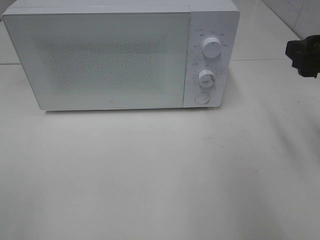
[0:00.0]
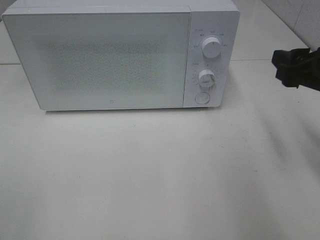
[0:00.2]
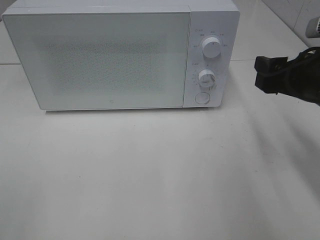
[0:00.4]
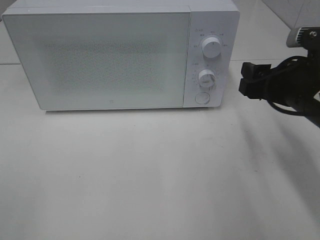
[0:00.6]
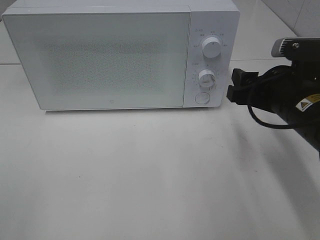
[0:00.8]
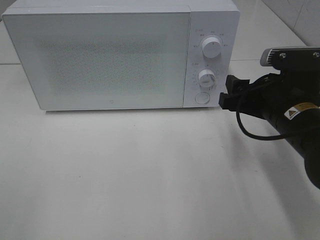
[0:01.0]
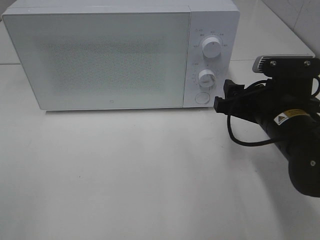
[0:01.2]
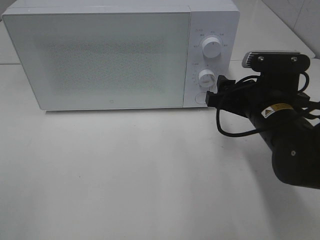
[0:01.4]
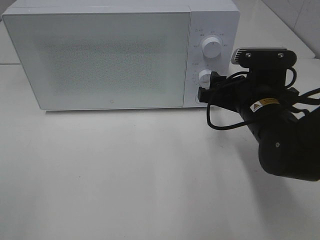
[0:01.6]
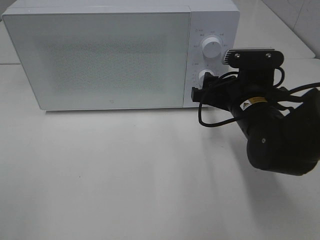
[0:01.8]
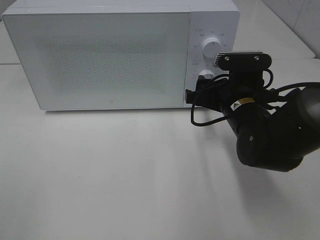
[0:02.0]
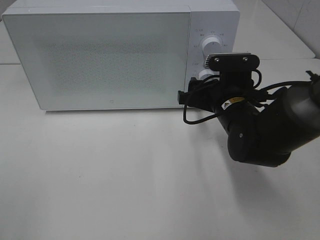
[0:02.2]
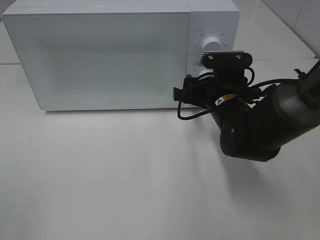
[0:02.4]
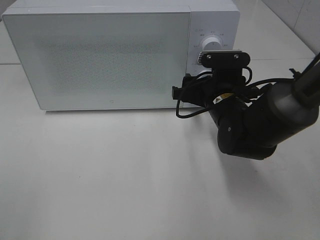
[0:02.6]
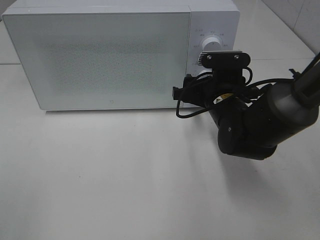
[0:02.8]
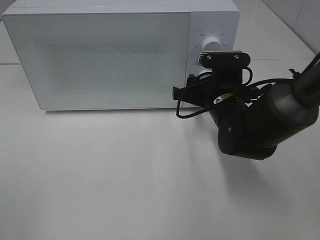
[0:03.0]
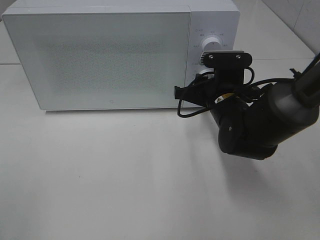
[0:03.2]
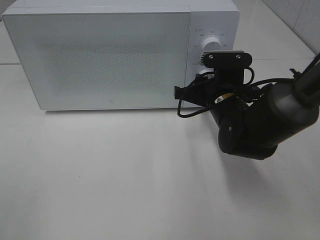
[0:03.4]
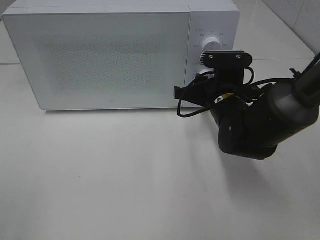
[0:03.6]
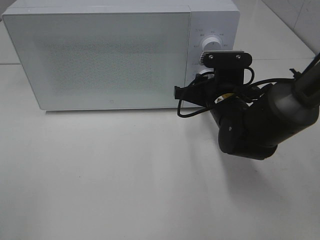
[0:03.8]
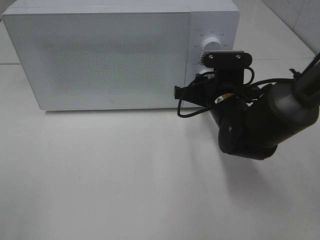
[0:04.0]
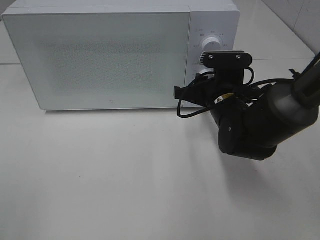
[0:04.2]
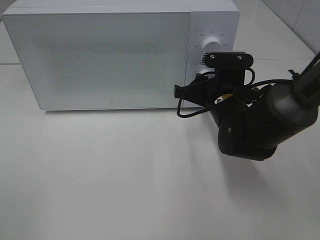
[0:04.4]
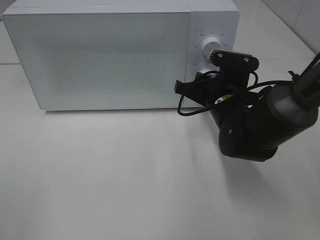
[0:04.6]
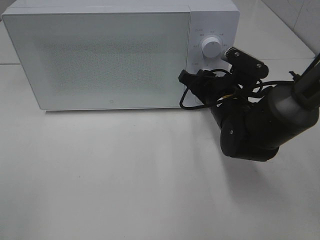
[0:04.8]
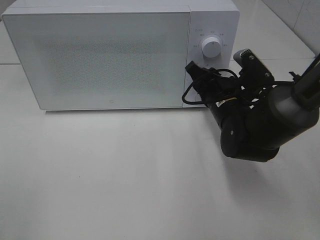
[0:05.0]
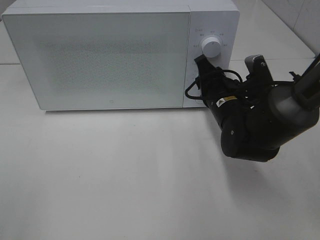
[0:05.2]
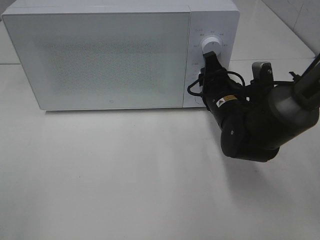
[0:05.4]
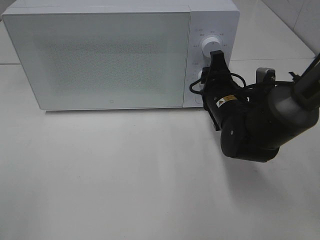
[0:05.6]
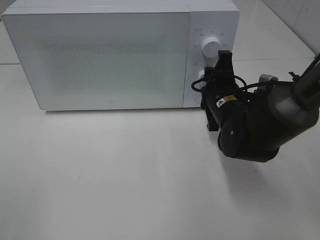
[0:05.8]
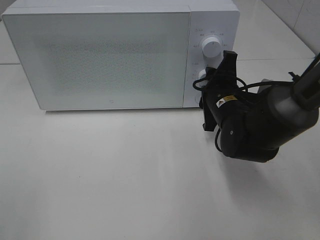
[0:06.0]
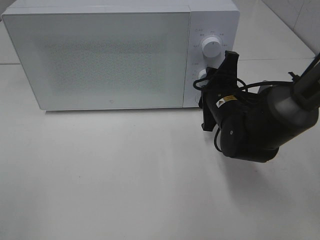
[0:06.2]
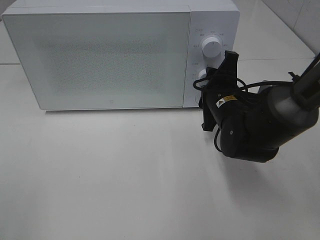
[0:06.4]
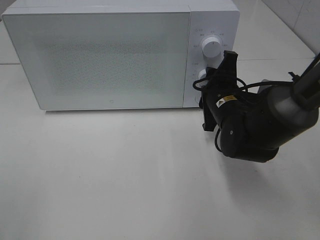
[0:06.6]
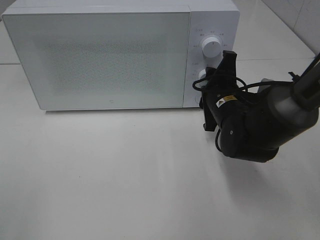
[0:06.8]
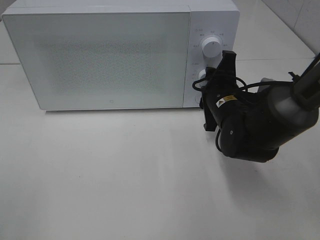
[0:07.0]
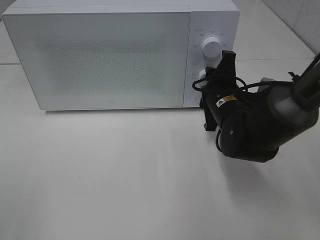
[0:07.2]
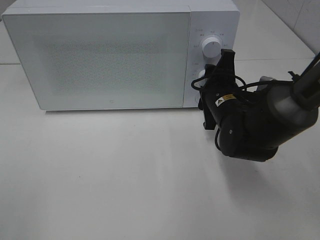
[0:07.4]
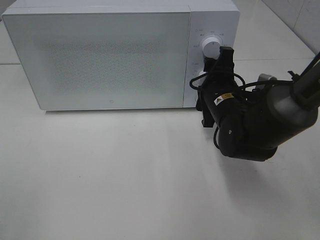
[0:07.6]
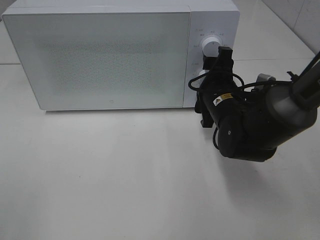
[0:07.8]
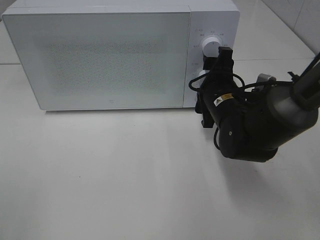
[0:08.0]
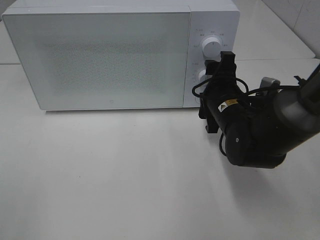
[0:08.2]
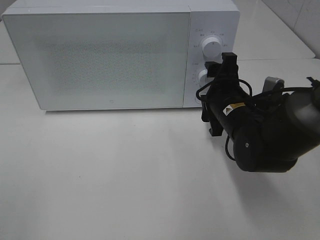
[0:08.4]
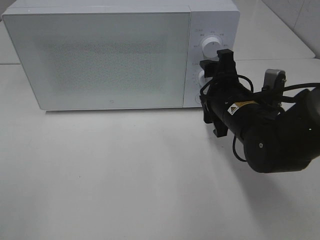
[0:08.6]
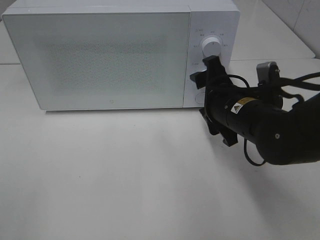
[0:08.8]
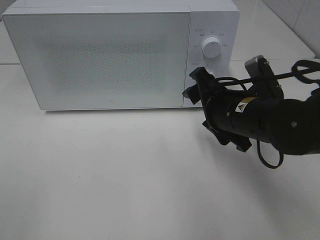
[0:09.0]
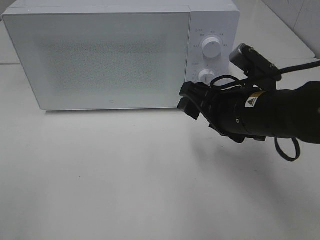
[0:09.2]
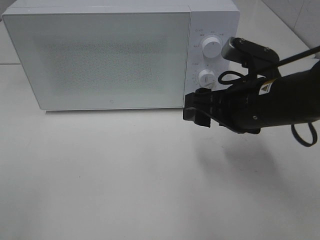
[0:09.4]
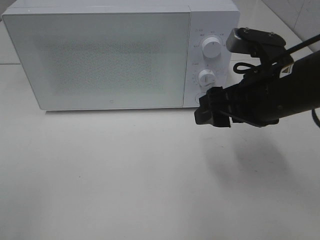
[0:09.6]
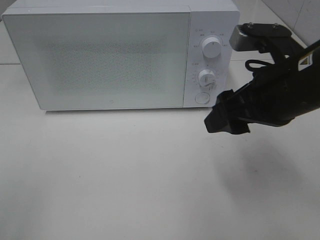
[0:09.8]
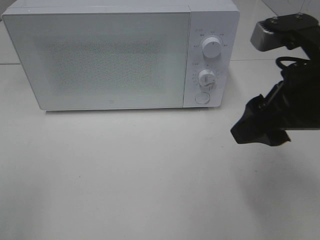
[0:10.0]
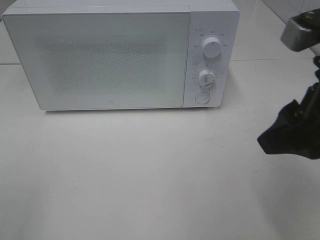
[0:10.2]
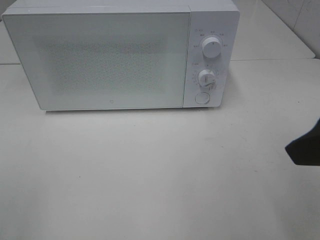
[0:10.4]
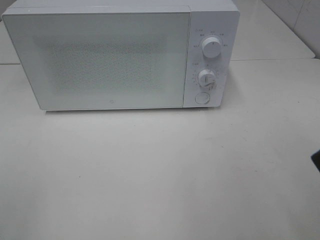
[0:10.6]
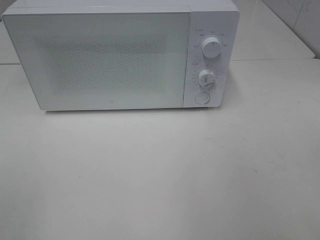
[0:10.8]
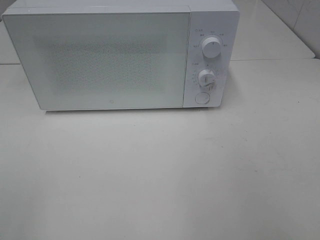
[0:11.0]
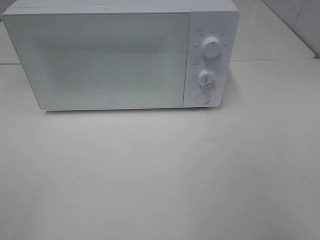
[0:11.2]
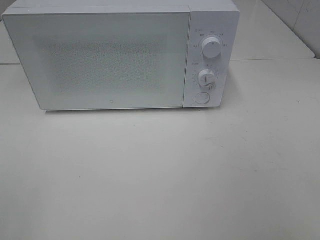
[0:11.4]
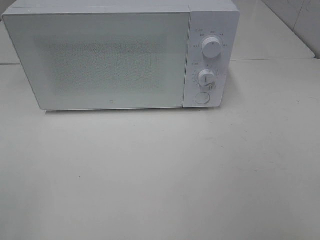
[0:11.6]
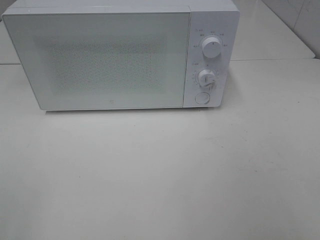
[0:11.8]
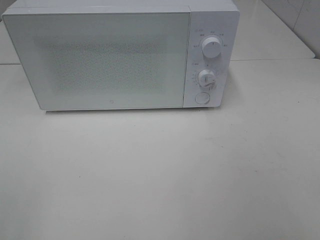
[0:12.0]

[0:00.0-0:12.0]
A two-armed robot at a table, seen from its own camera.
Task of the whole recording: Heat Sandwich.
Step, 0:00.0 to 0:08.2: Right hand: twist timer button.
0:00.0 to 0:01.6: The right gripper goes approximately 15 cm to the left and downward.
0:01.6 to 0:03.0: The right gripper shifts by roughly 5 cm.
0:03.0 to 0:04.4: The two grippers keep their place.
0:06.0 to 0:07.6: The two grippers keep their place.
0:07.6 to 0:09.0: The right gripper heads backward, covering some 5 cm.
0:09.0 to 0:10.4: The right gripper shifts roughly 20 cm upward, backward and to the right.
0:10.4 to 0:12.0: The right gripper moves backward and to the right, approximately 15 cm.

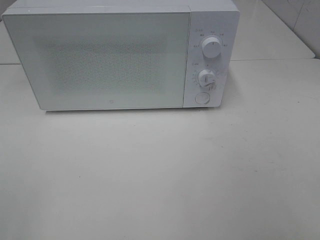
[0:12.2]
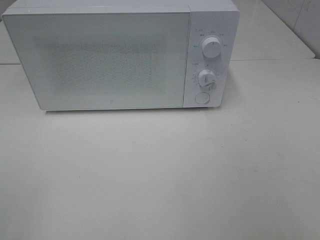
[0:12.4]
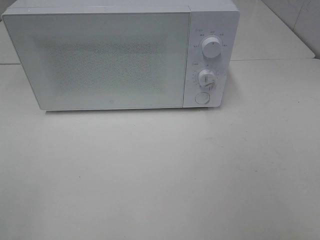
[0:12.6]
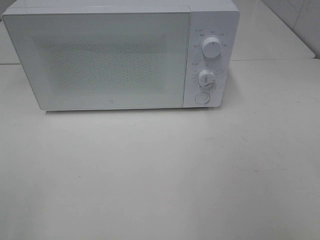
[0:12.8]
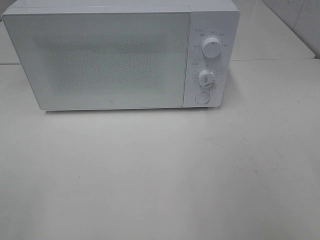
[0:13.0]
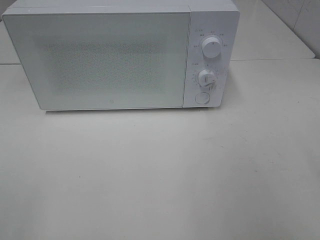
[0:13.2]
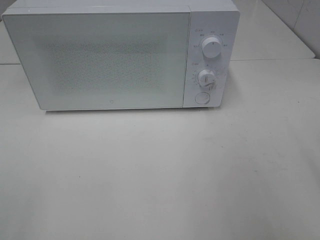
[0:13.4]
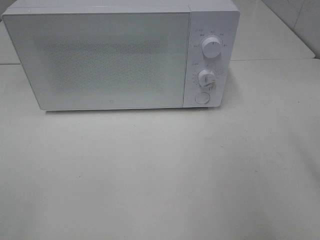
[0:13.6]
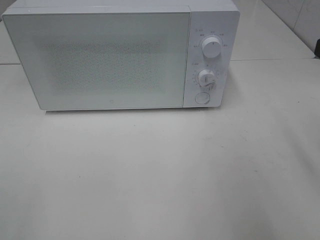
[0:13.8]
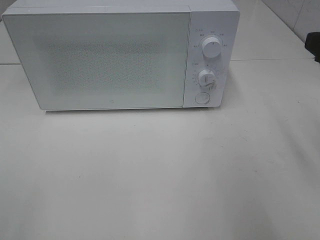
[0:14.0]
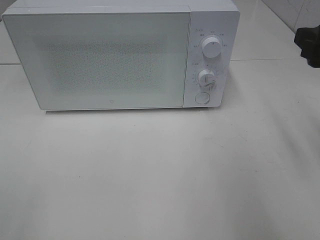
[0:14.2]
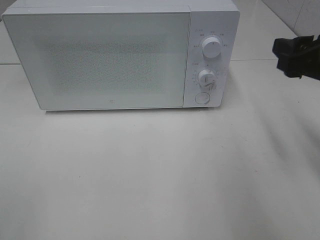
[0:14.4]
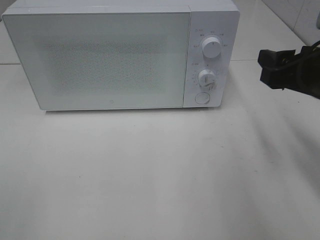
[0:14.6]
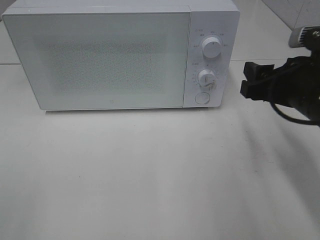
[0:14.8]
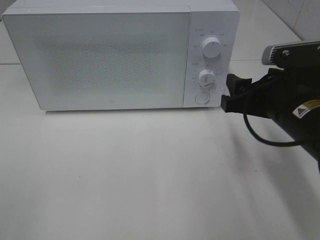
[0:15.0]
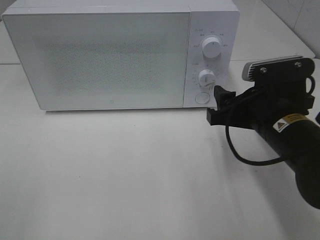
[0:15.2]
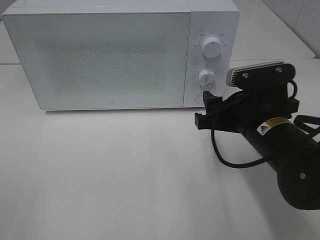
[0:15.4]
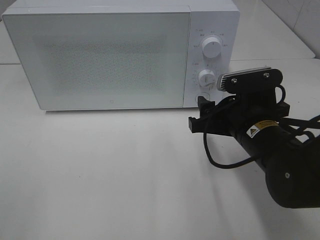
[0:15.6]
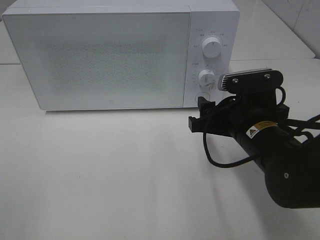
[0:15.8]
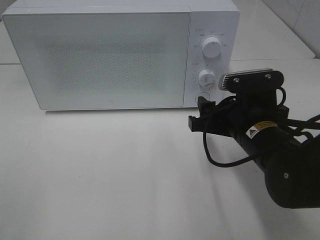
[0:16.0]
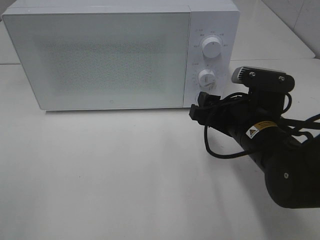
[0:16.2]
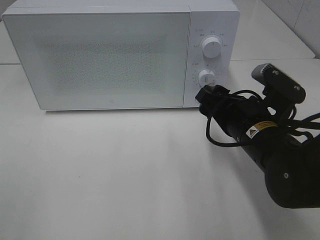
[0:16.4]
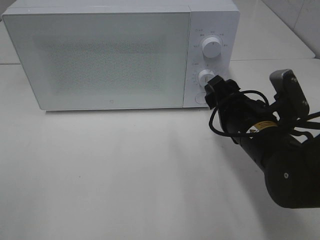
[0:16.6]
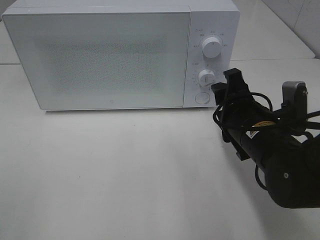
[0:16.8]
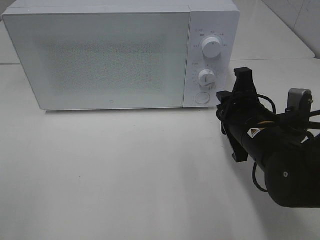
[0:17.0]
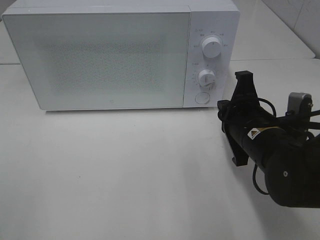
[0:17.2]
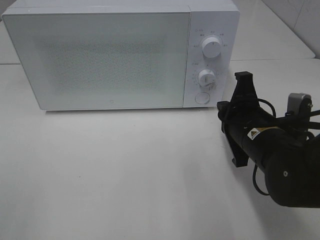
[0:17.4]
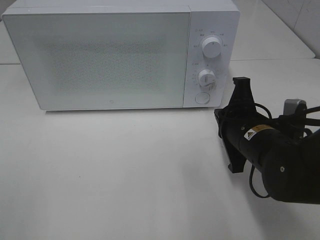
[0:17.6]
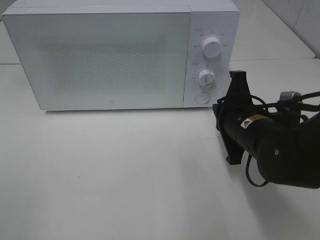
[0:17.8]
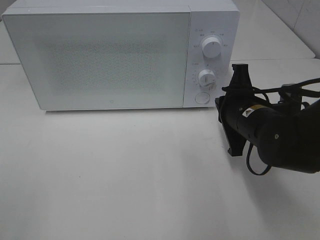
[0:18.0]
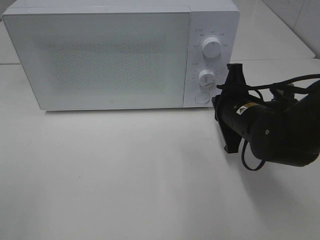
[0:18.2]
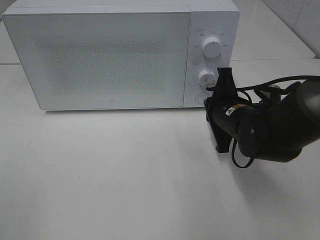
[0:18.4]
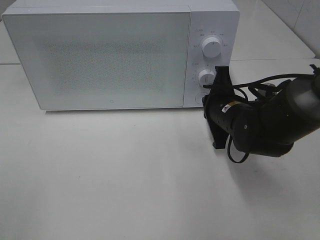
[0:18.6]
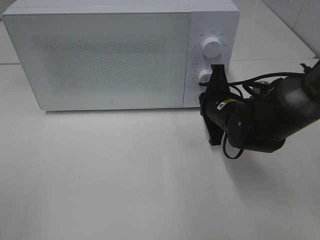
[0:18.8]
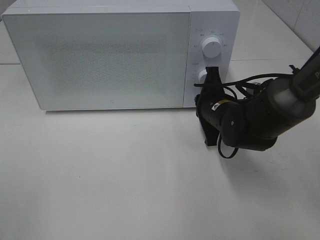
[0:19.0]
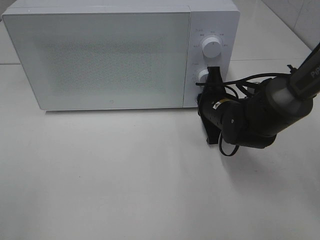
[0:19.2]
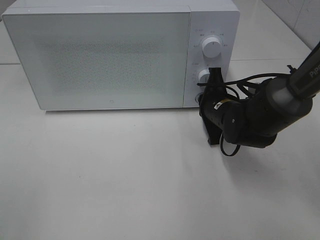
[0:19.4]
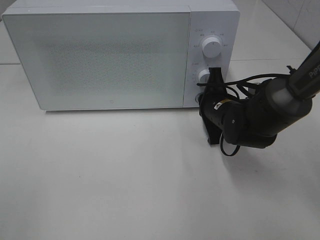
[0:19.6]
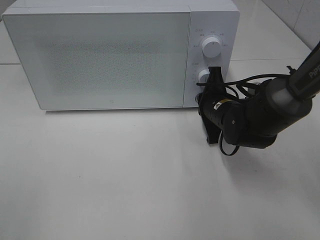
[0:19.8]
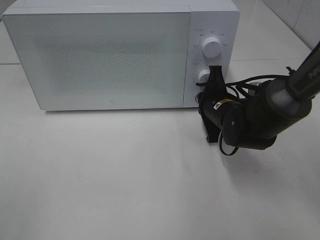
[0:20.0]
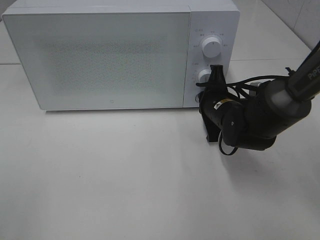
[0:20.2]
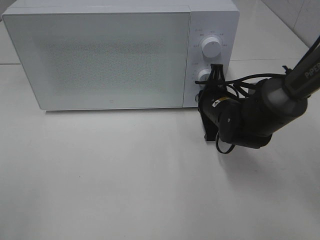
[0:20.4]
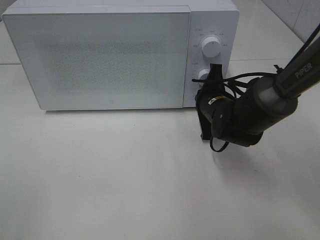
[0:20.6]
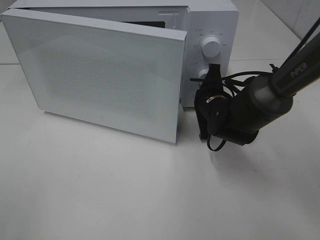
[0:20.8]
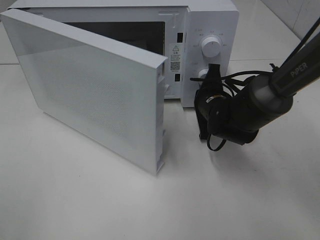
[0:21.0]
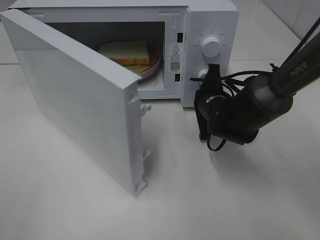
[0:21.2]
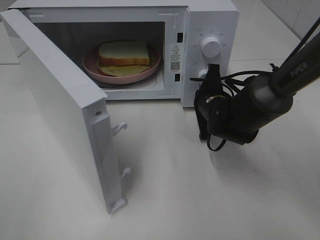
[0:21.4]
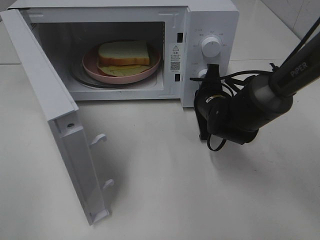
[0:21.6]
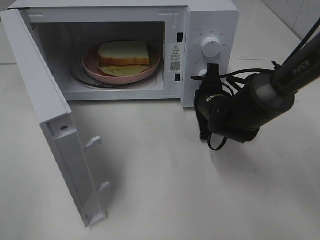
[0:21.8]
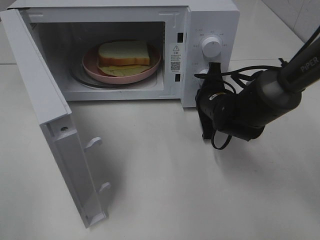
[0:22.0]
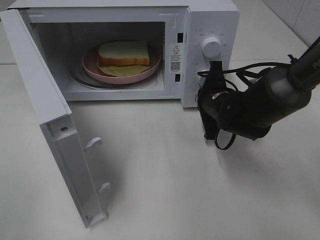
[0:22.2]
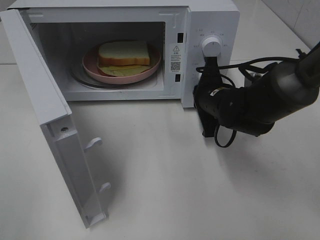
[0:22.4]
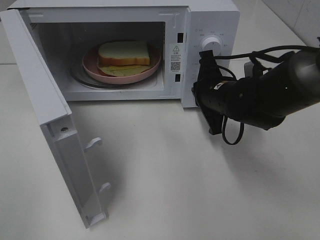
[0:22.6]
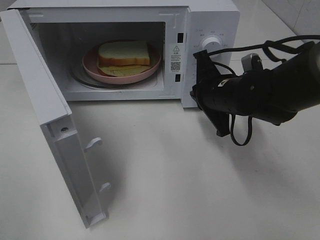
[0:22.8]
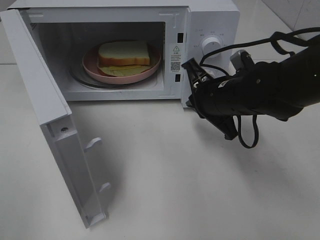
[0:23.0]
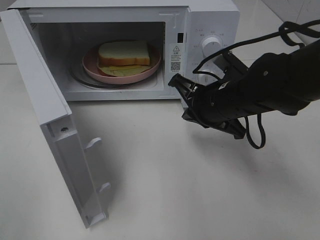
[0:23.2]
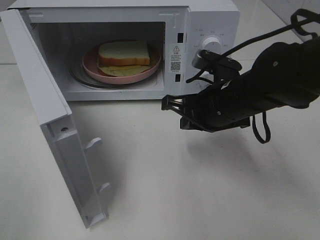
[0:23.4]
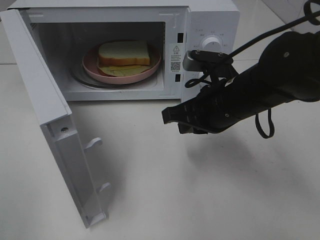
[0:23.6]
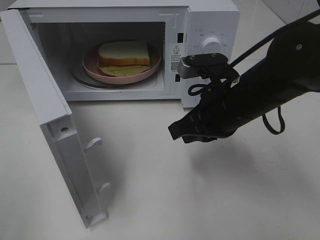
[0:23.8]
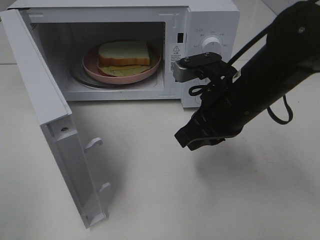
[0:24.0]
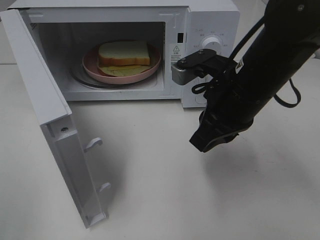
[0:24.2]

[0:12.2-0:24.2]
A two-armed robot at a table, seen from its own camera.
Task of the whole recording: Heat Sandwich.
Step, 0:12.2 to 0:22.8: Right hand: press the switch.
0:13.8 to 0:15.2: The right gripper goes about 15 cm downward, to the left and forward.
0:16.6 to 0:18.2: The right gripper changes place by some 5 cm, and closes its fingers.
0:18.2 to 0:19.8: The right gripper goes about 5 cm forward.
0:21.2 to 0:22.6: The right gripper ends up about 5 cm from where it was.
0:22.6 to 0:24.2: The right gripper heads upward and backward, covering roughly 10 cm.
